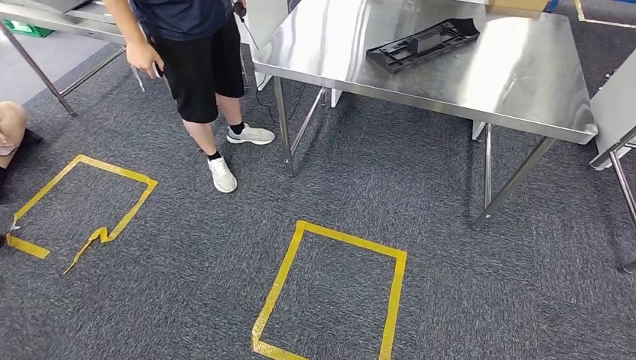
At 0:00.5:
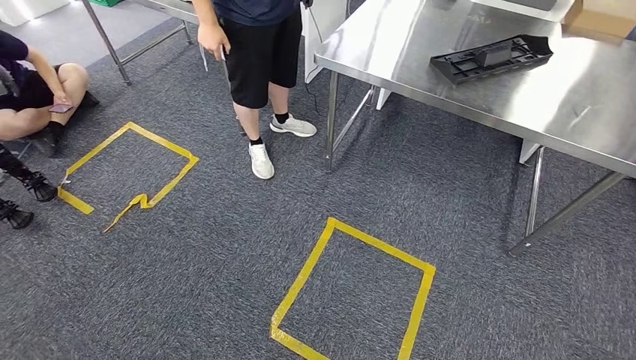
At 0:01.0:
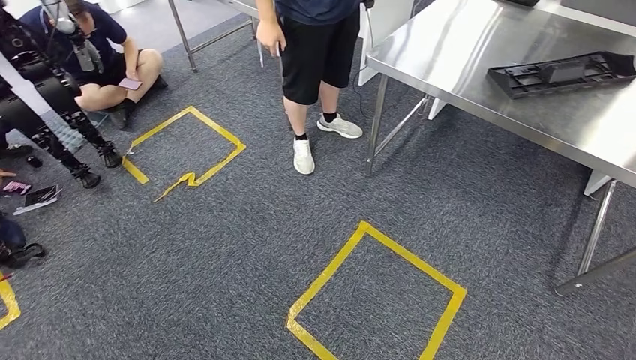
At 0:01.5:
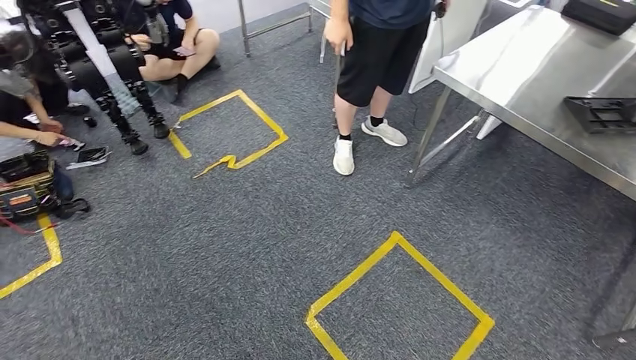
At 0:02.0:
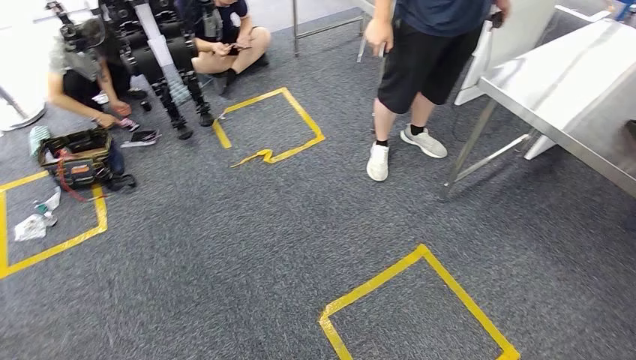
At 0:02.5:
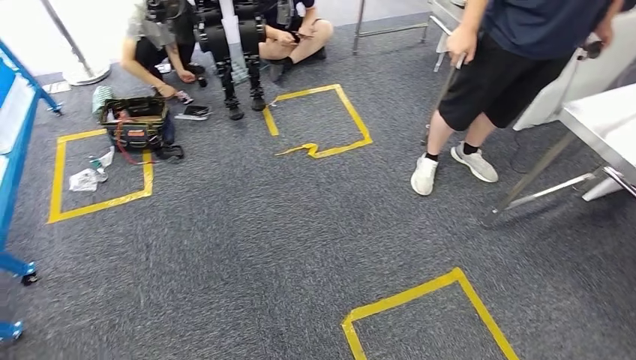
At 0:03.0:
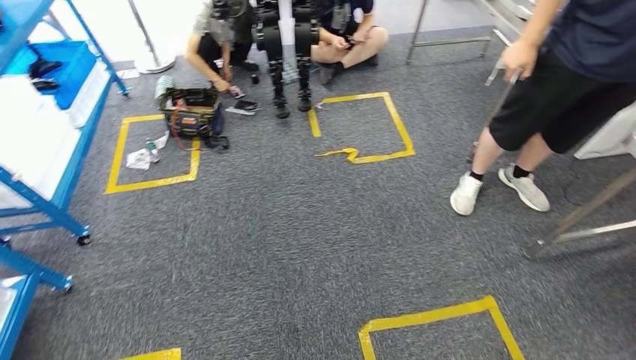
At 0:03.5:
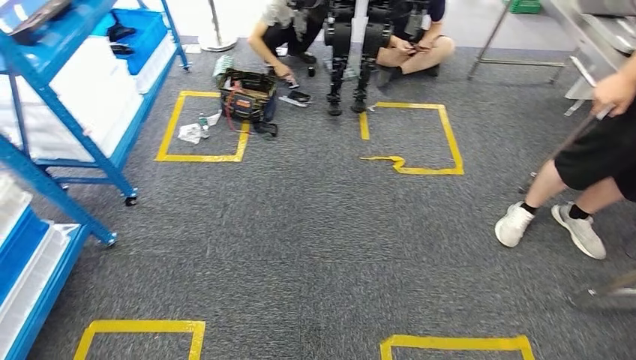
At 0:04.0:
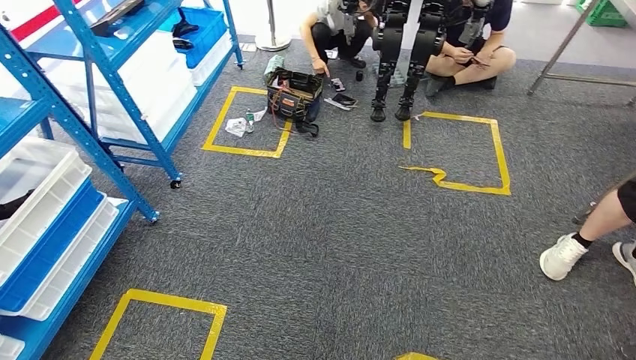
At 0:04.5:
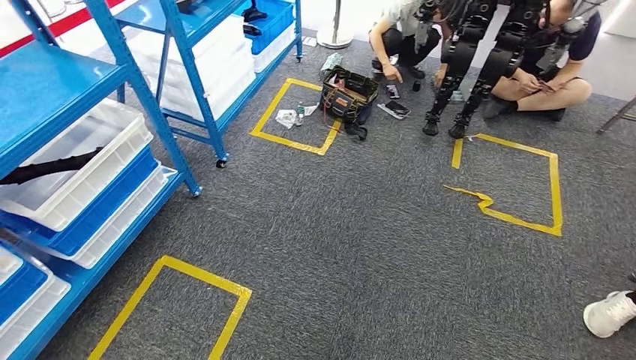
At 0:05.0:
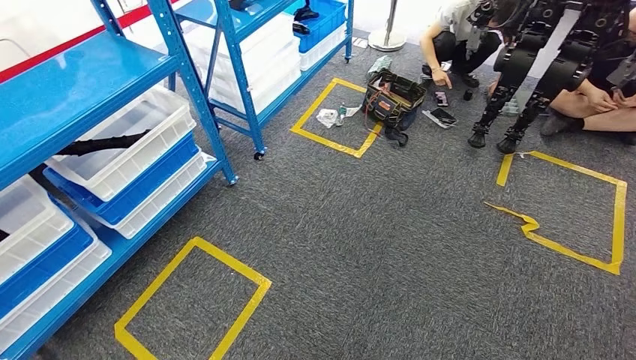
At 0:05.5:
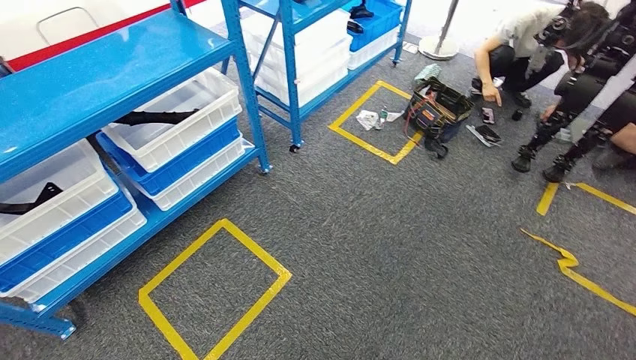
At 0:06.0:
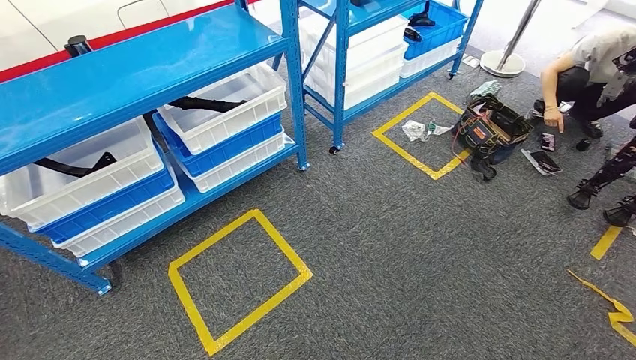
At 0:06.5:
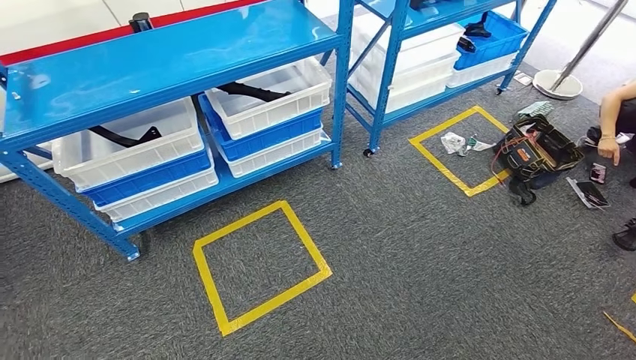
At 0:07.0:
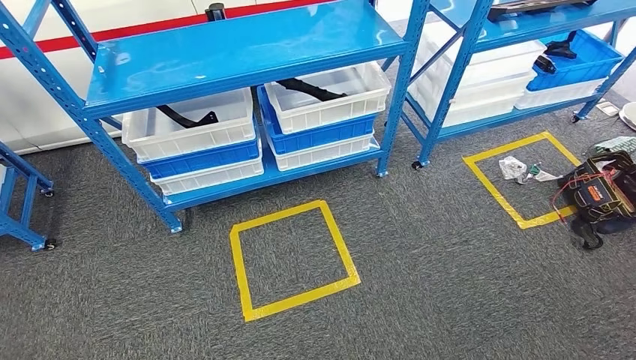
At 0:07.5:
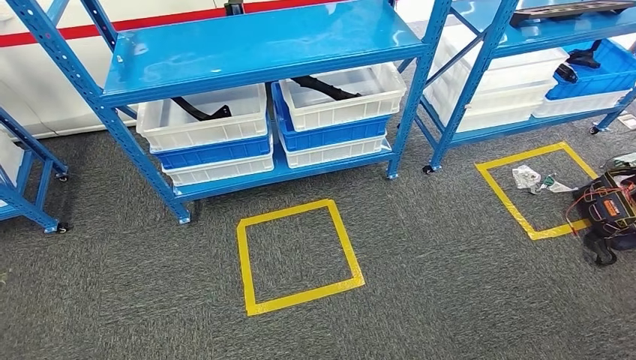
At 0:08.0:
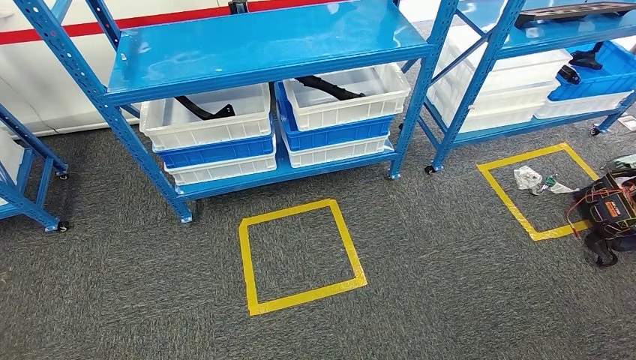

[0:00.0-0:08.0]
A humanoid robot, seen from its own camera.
Step, 0:00.0 to 0:08.0: Move to the initial position of the shelf.

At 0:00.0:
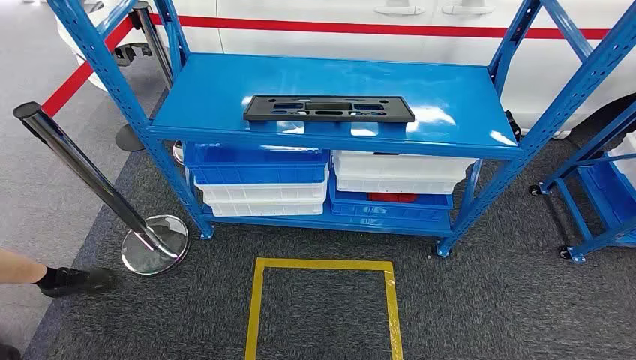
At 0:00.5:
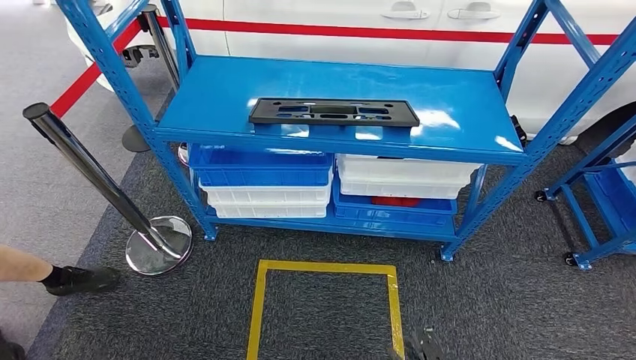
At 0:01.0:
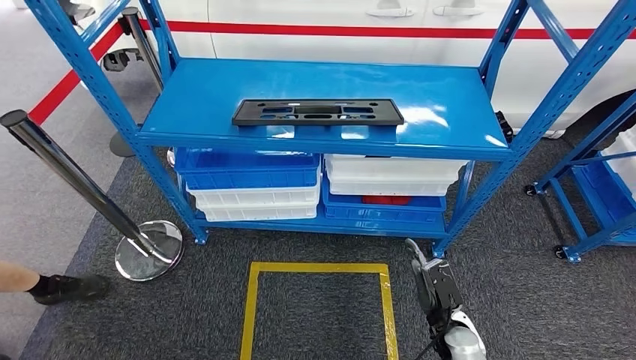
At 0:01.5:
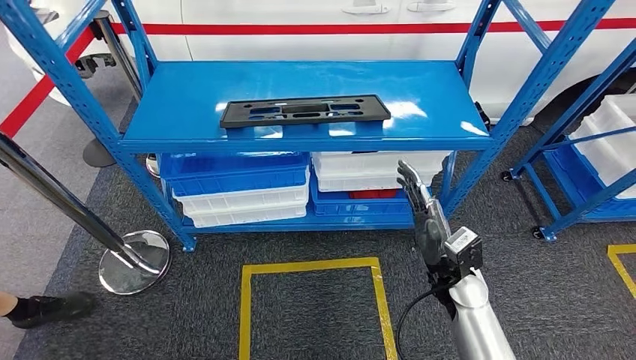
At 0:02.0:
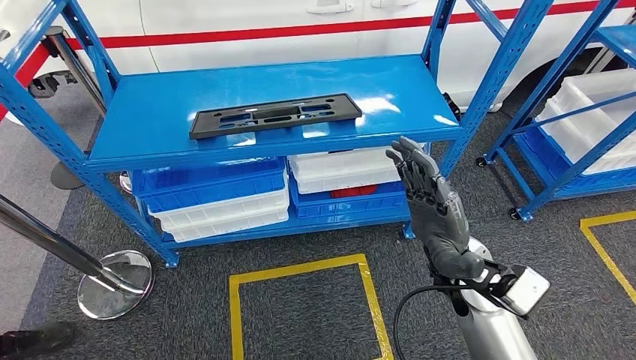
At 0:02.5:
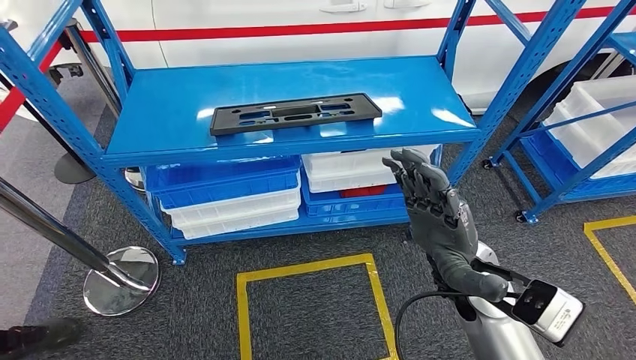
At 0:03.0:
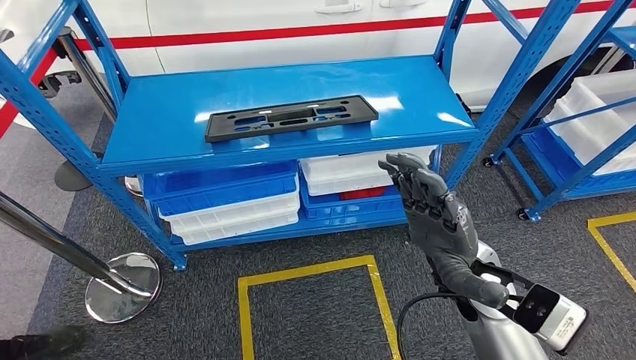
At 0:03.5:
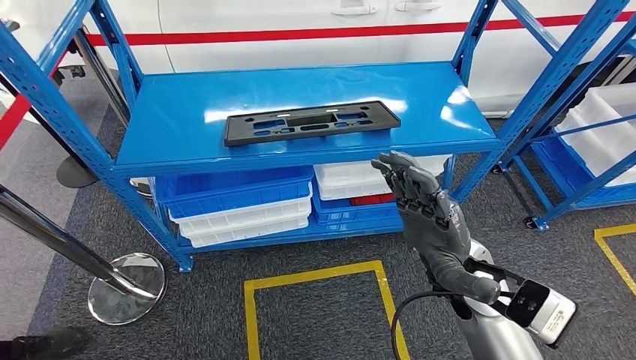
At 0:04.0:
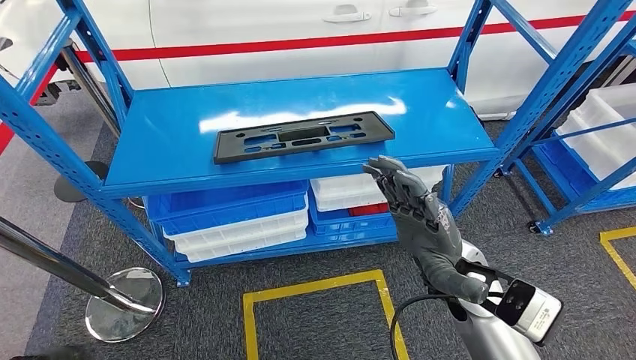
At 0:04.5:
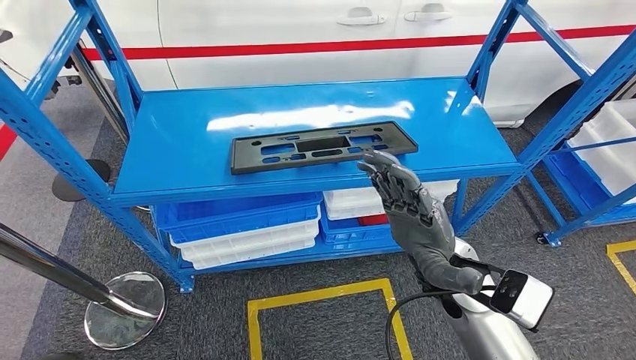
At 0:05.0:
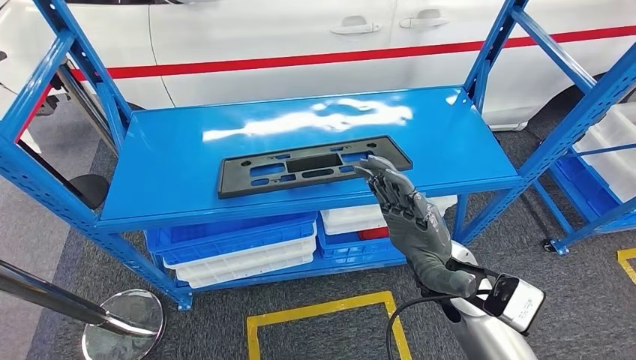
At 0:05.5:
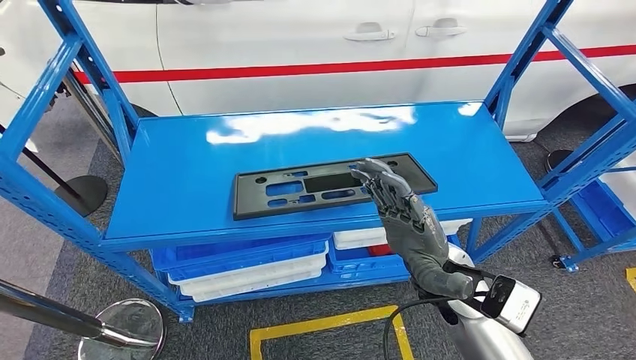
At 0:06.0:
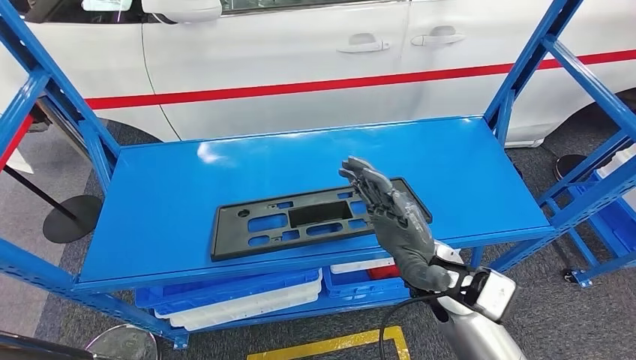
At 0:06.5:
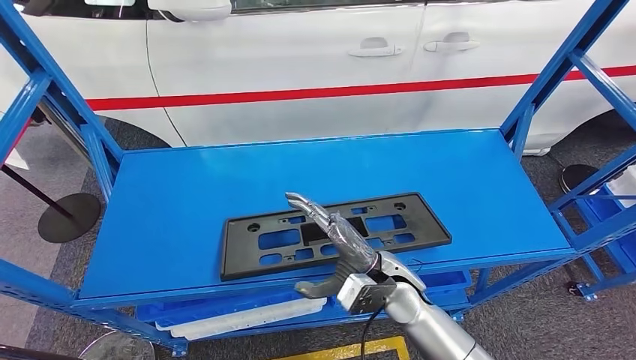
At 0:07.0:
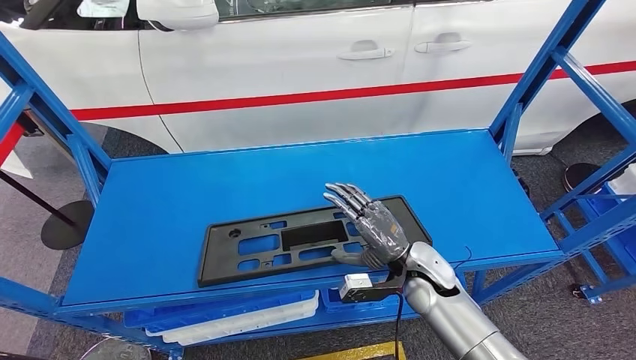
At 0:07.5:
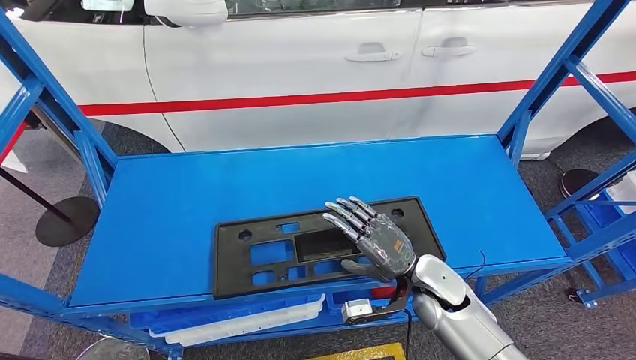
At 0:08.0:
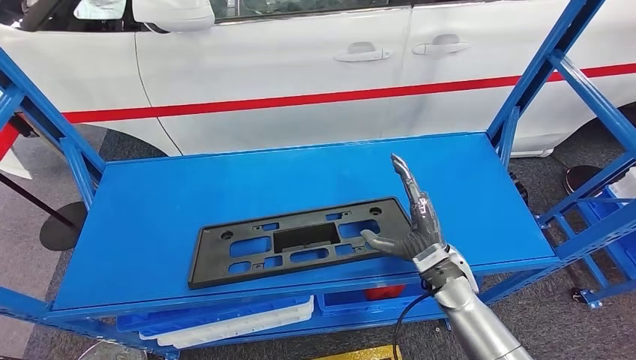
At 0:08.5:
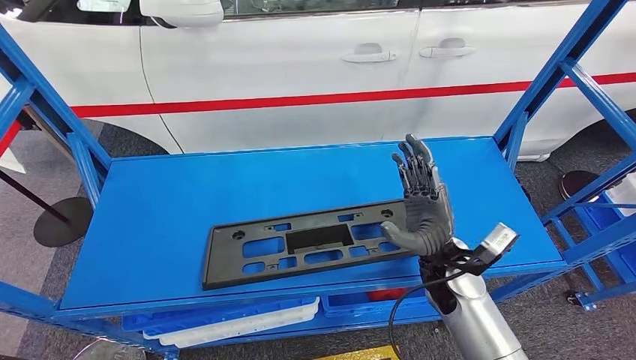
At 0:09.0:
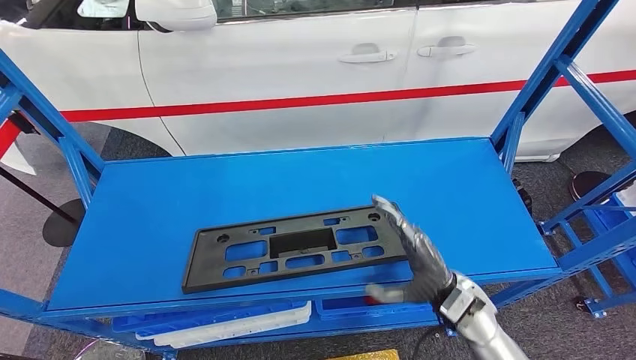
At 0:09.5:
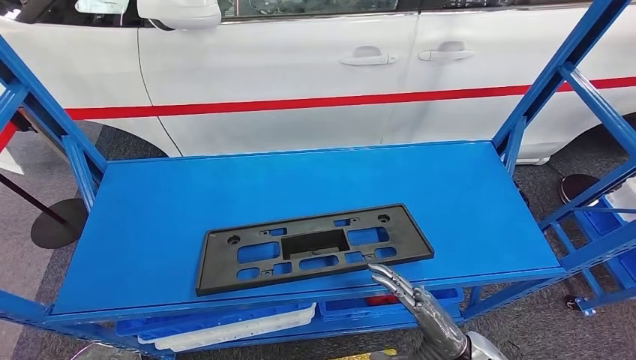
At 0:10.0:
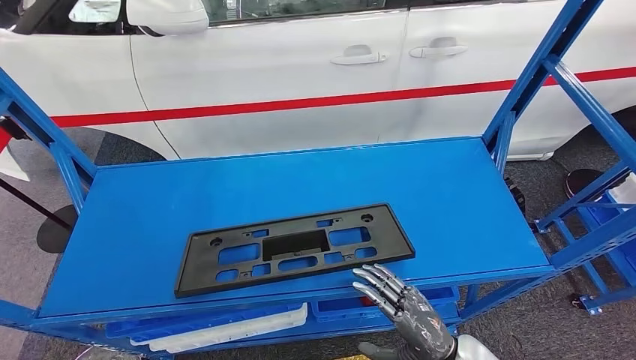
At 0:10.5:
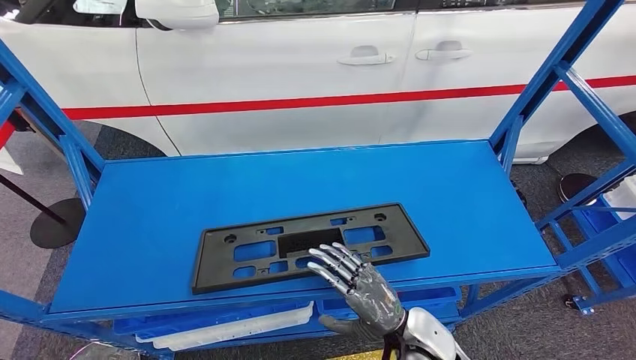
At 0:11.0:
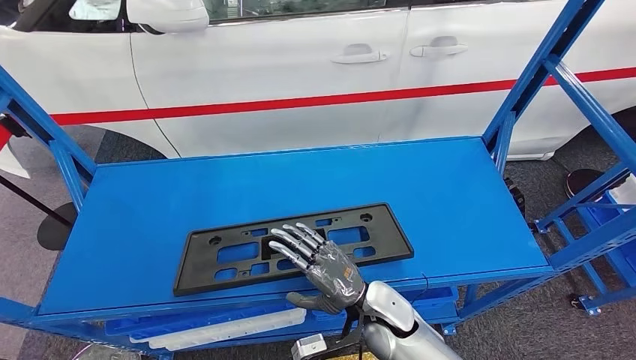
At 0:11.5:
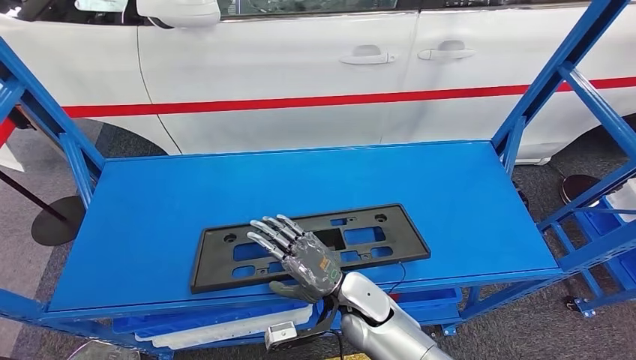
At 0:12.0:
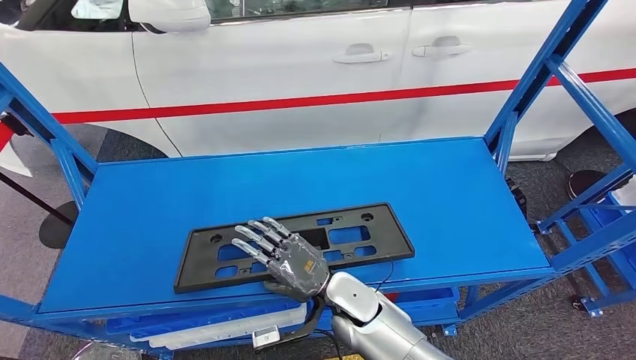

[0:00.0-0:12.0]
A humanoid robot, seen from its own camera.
0:10.0 to 0:12.0: The right hand is displaced to the left and forward by some 20 cm.
